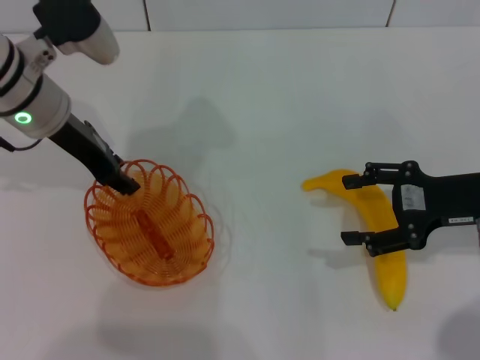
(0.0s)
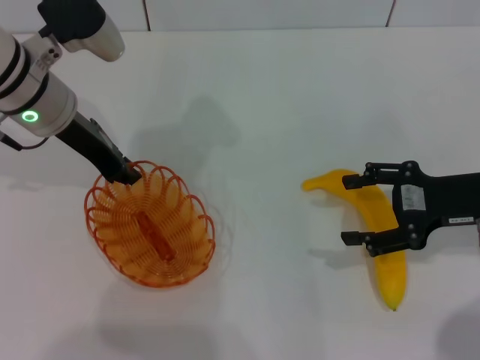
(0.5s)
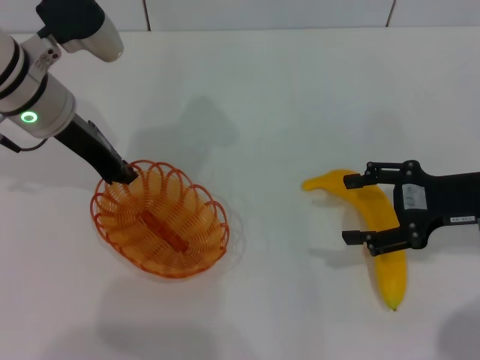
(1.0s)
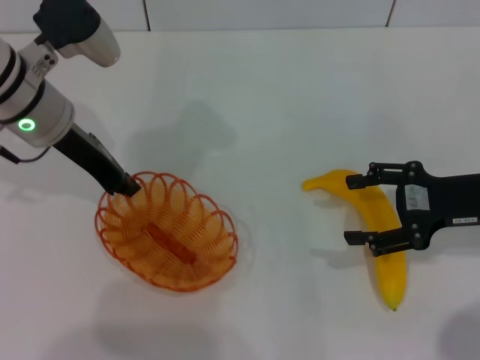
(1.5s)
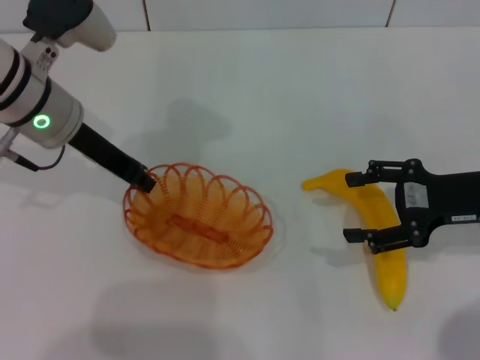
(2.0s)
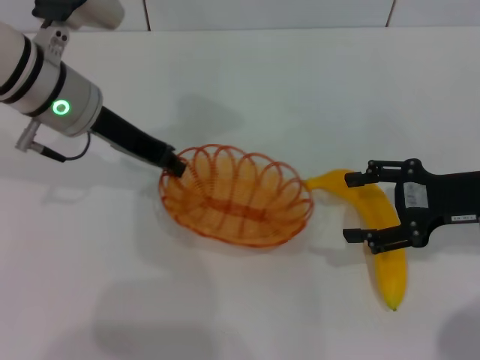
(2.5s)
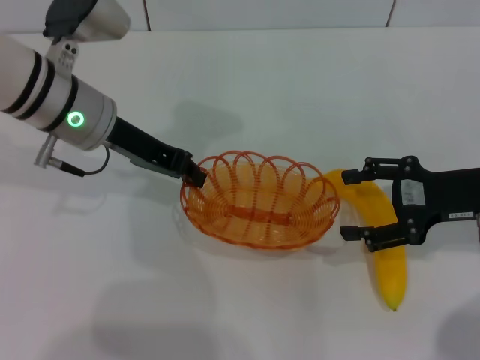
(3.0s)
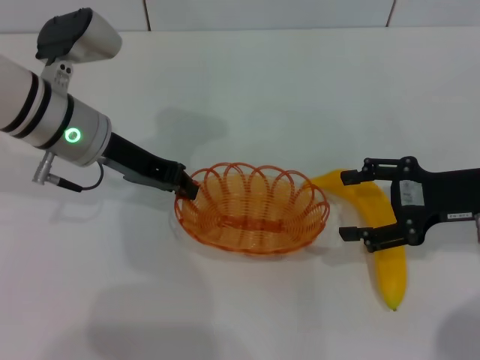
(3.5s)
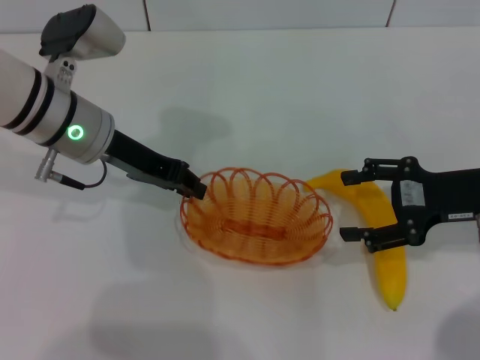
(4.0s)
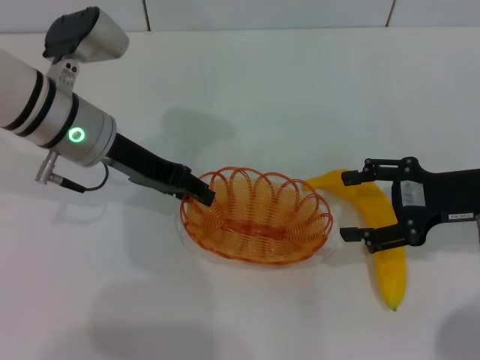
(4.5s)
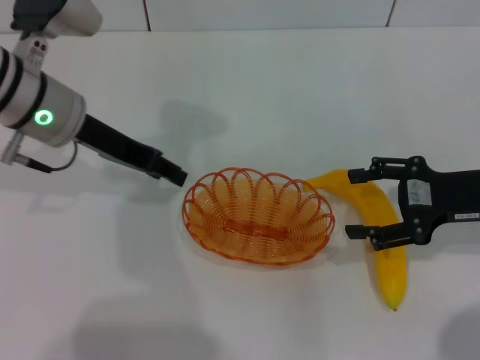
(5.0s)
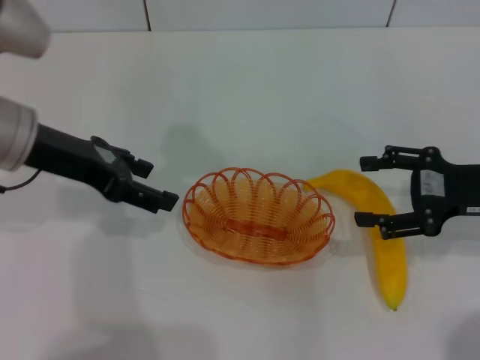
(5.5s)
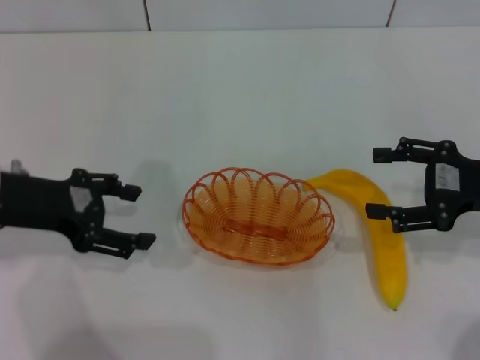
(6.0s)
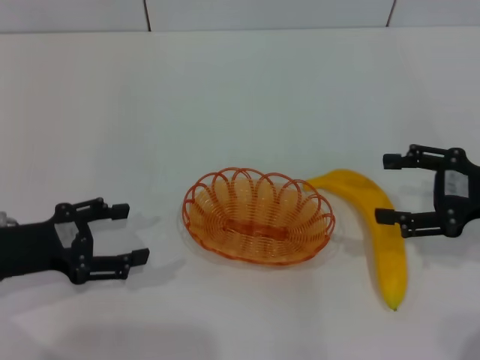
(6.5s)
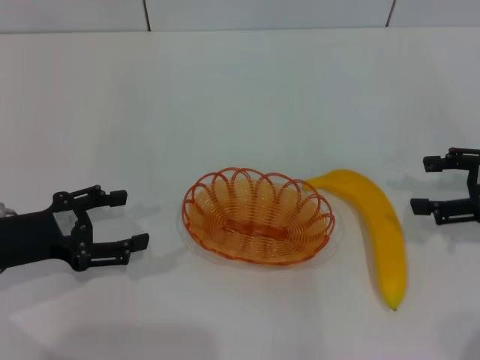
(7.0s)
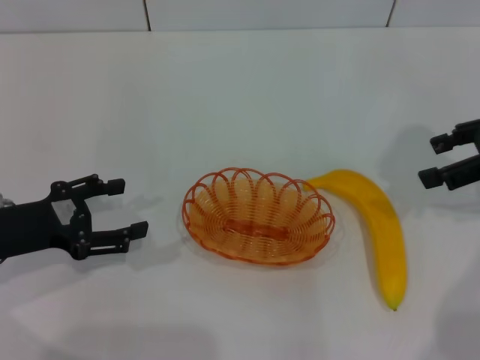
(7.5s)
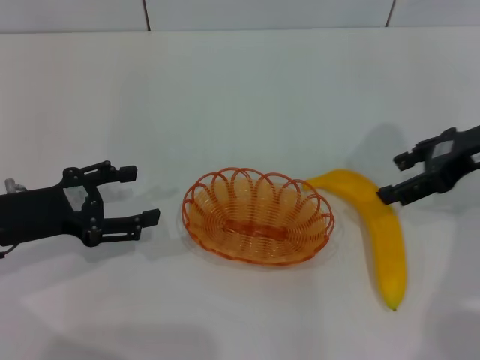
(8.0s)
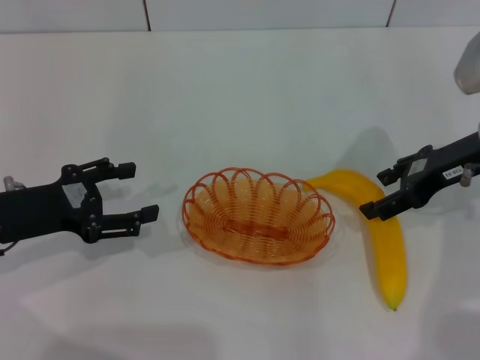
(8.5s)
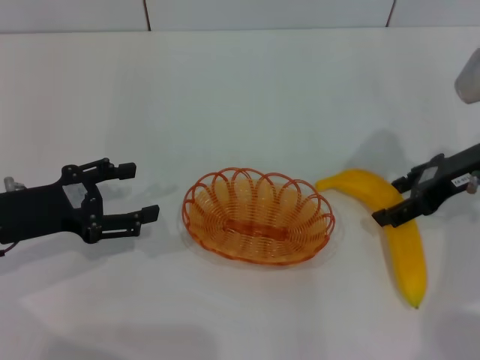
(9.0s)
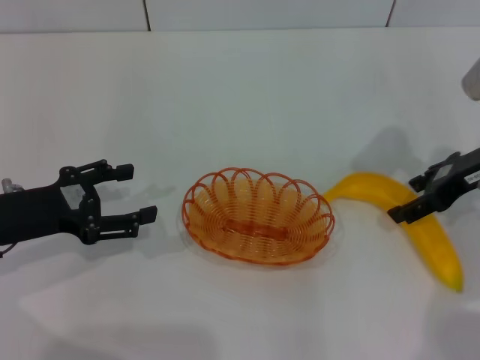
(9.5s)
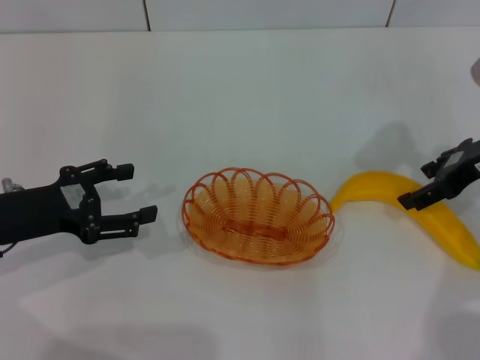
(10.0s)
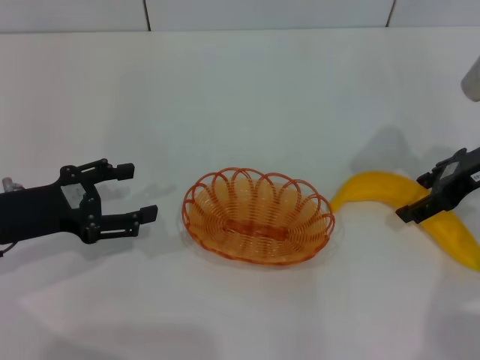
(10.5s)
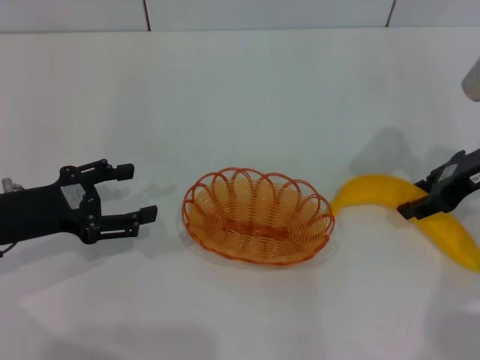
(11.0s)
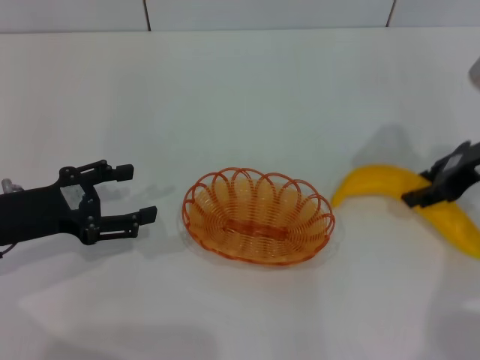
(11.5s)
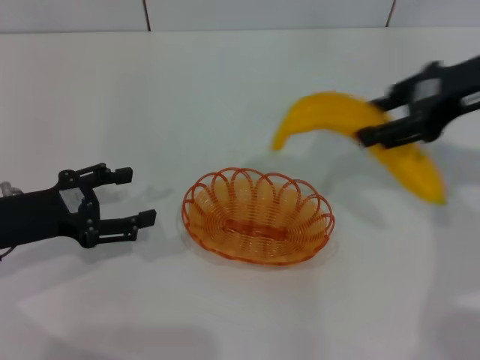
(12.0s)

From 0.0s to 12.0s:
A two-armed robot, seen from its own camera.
Step, from 0.0s to 2.0s: Pick up the basket with the left gripper.
Step, from 2.5s to 5.0s: Place the basket in the center of view with the left gripper.
Step, from 6.0s to 11.5s: Pick up the banana with the right gripper.
From 0.0s to 2.0s: The left gripper closes its fingers.
From 2.0s to 4.0s: The grippers move only a little.
From 4.0s to 6.0s: The left gripper travels to the left and backward by about 10 cm, and opens its fingers.
From 6.0s to 8.0s: The left gripper heads downward, covering approximately 5 cm; the right gripper travels forward and upward by some 10 cm.
From 8.0s to 10.0s: The grippers make only small movements.
From 10.0s to 12.0s: The right gripper shifts about 10 cm upward, and closes up.

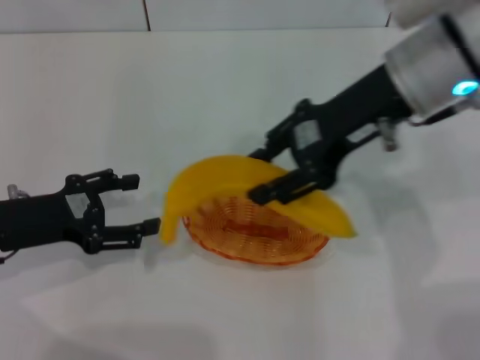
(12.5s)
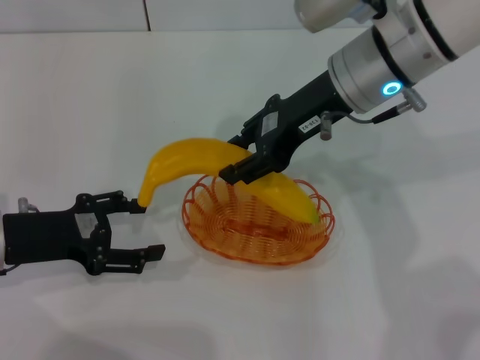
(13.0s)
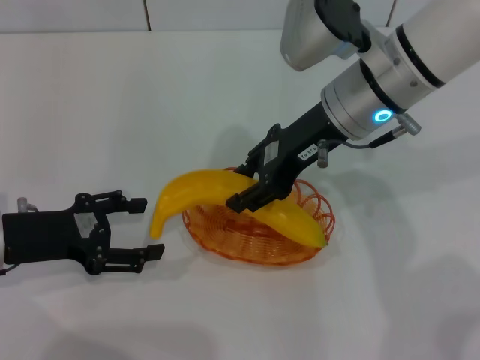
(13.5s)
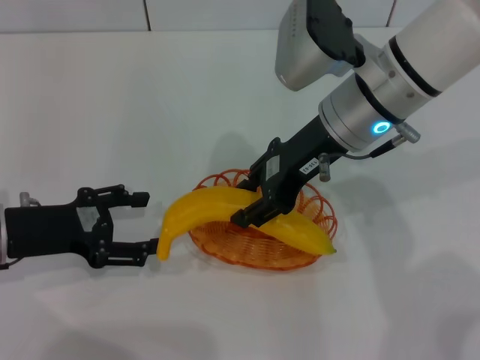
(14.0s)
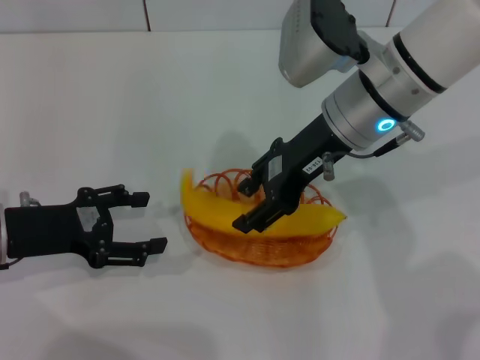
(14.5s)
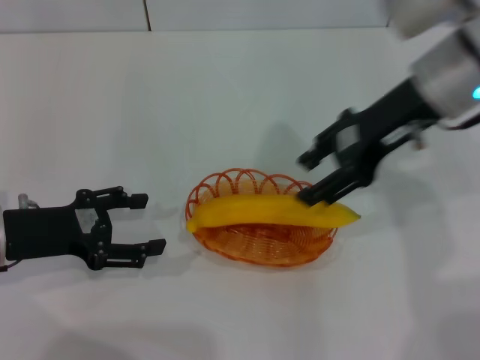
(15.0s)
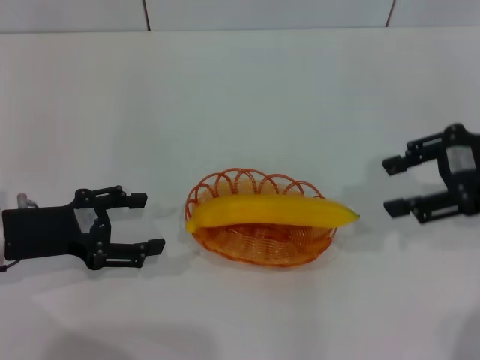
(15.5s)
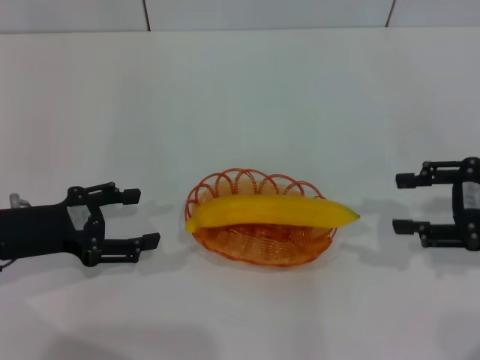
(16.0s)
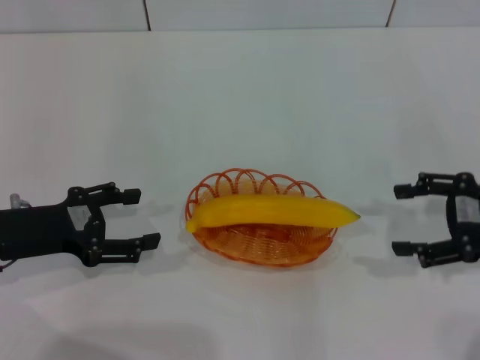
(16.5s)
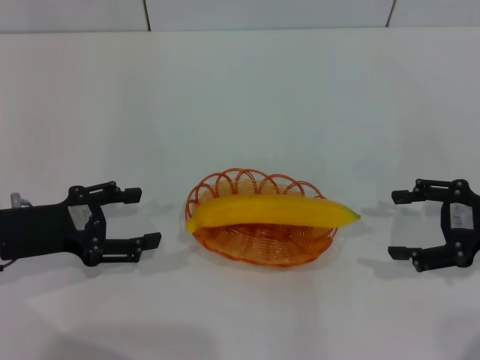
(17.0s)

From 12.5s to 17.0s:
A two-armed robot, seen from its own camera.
Step, from 12.5s to 14.5s: Place the banana into the basket with the right gripper.
From 12.5s to 14.5s: The right gripper goes about 5 cm downward.
From 14.5s to 17.0s: The right gripper moves to the right and backward, roughly 25 cm, and opens up.
